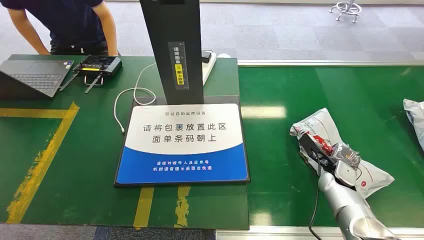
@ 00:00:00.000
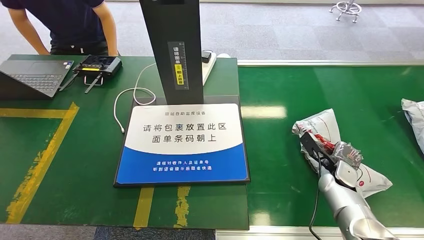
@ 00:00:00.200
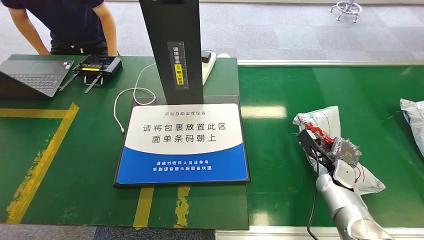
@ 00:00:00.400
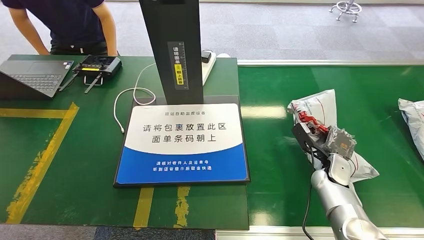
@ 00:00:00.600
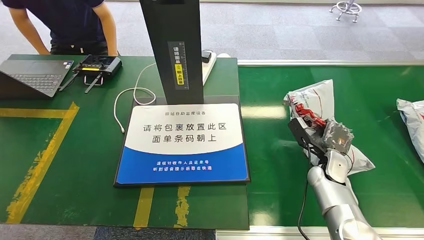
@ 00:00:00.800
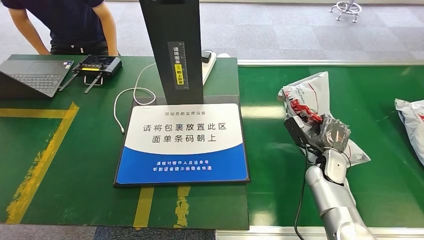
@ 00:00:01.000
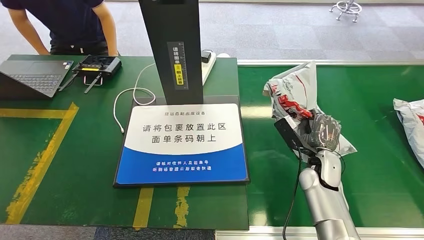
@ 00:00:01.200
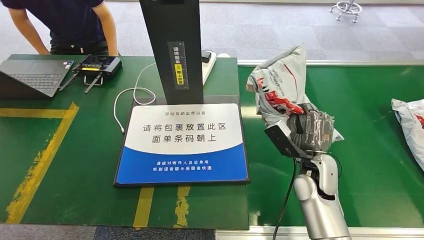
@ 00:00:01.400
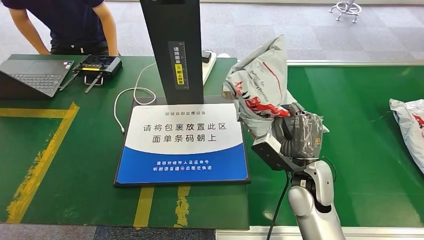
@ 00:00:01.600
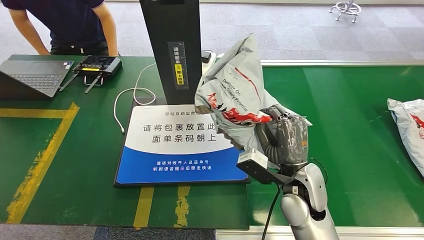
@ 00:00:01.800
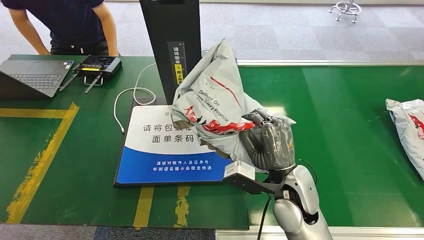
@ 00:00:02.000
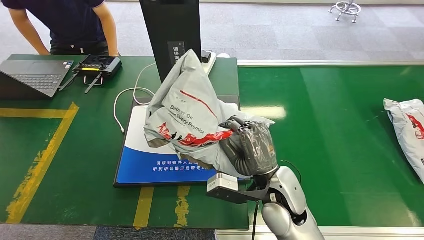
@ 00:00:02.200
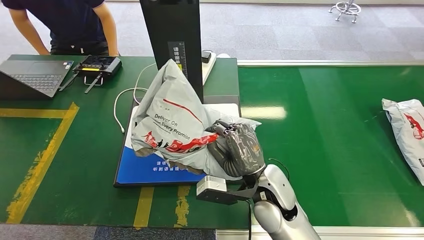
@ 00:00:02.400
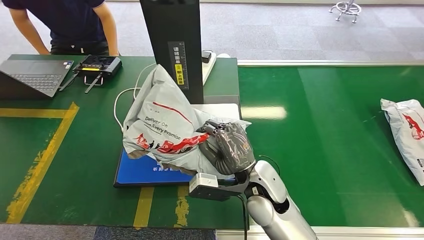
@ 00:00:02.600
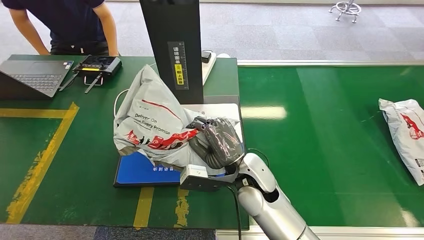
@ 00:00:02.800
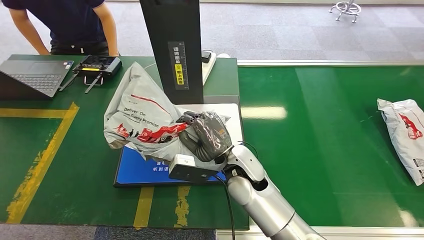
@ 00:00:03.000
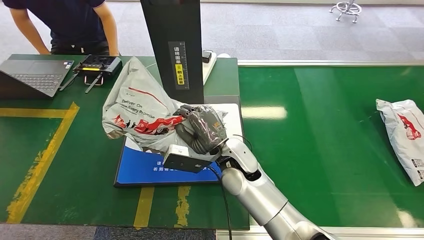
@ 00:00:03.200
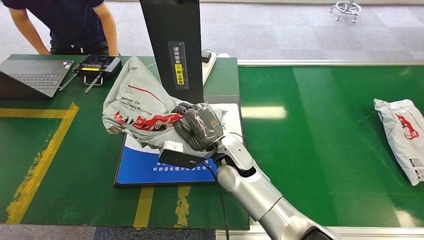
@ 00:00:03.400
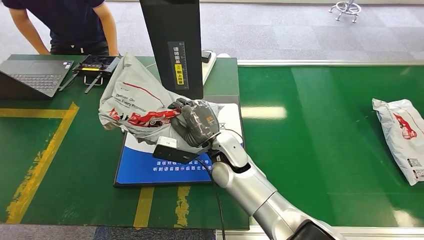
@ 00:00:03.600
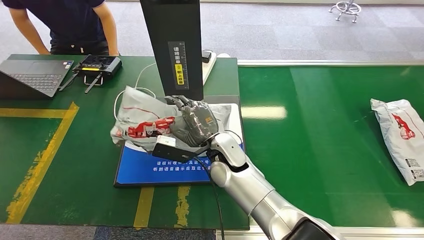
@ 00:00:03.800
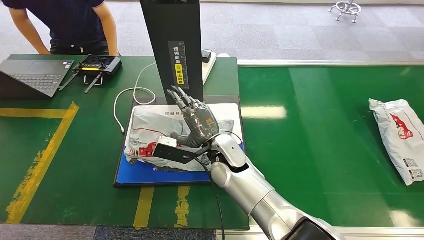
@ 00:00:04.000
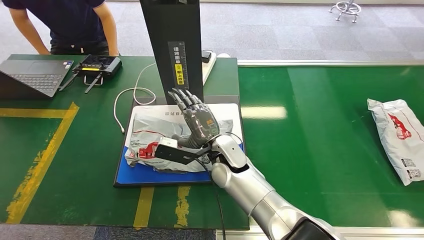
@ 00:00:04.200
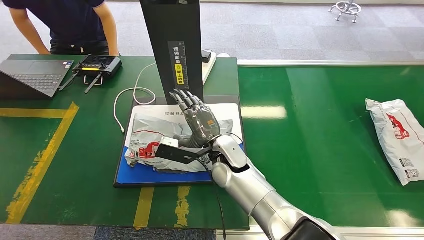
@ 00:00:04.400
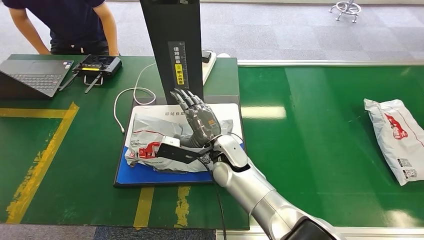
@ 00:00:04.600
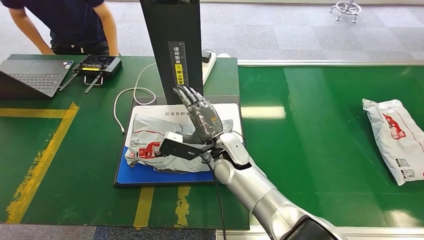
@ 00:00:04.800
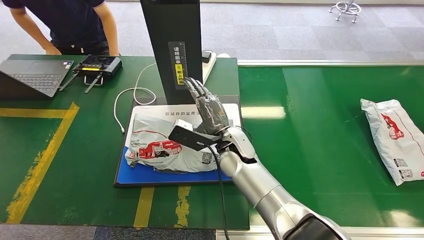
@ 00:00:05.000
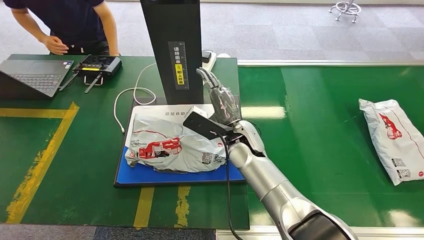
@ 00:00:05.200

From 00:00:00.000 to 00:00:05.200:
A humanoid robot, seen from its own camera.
Step, from 00:00:00.000 to 00:00:01.800: Pick up the package from the conveyor belt.
Step, from 00:00:02.000 to 00:00:05.200: Place the package onto the inbound machine.

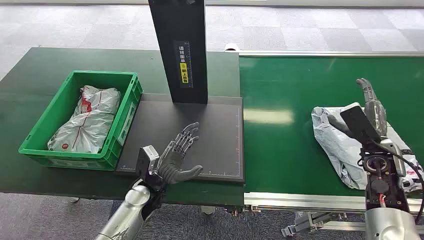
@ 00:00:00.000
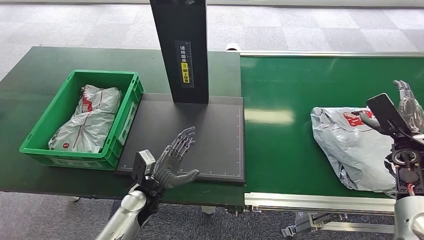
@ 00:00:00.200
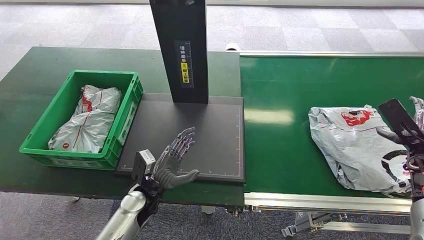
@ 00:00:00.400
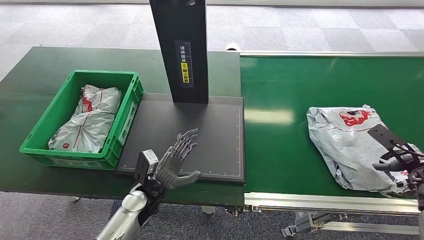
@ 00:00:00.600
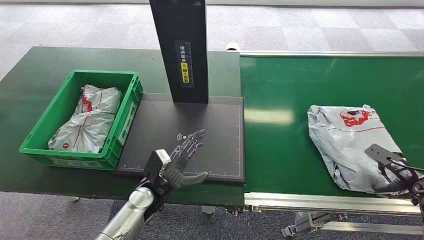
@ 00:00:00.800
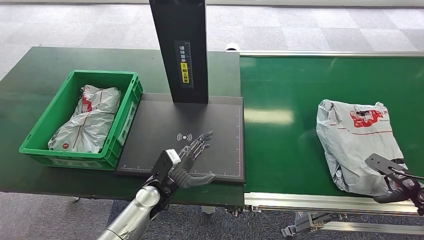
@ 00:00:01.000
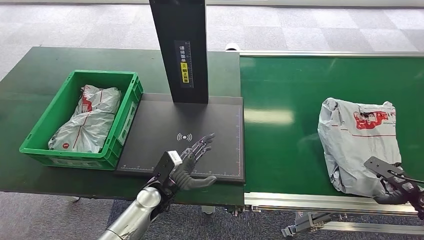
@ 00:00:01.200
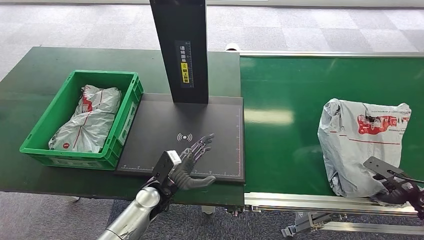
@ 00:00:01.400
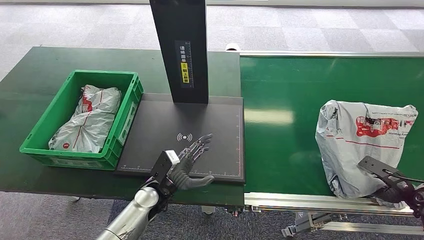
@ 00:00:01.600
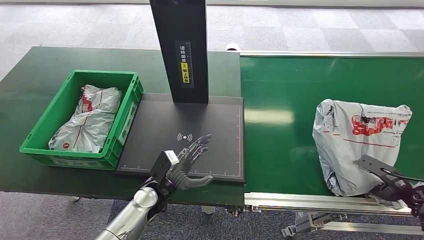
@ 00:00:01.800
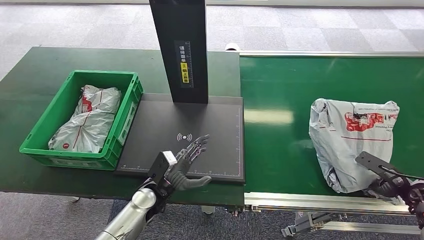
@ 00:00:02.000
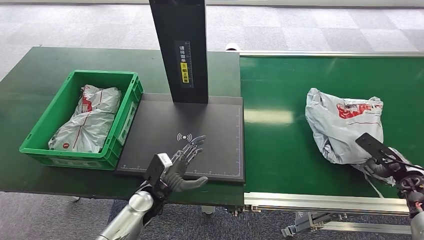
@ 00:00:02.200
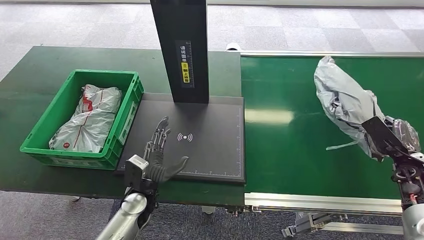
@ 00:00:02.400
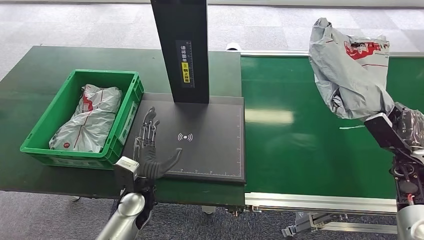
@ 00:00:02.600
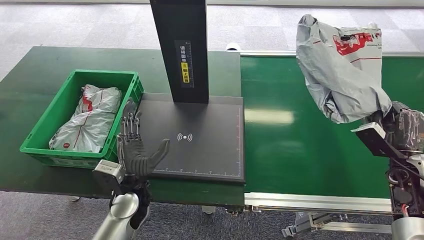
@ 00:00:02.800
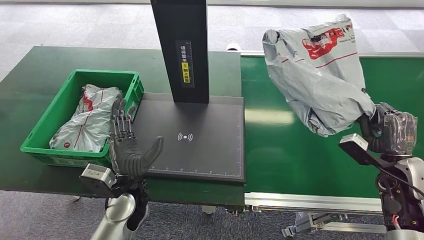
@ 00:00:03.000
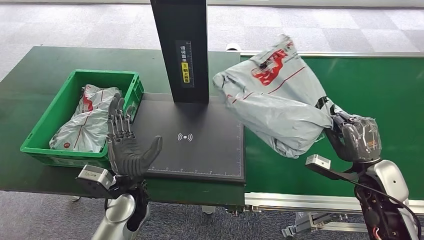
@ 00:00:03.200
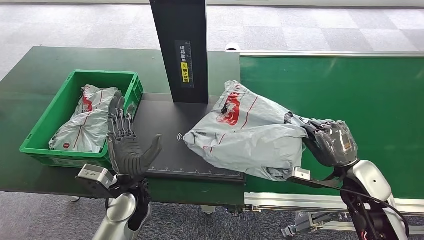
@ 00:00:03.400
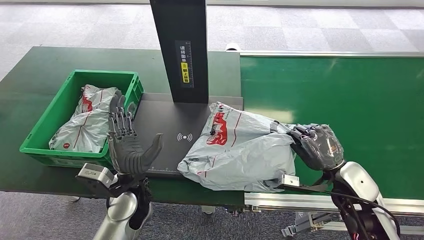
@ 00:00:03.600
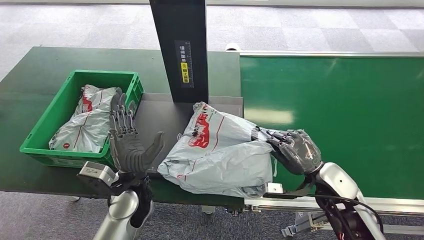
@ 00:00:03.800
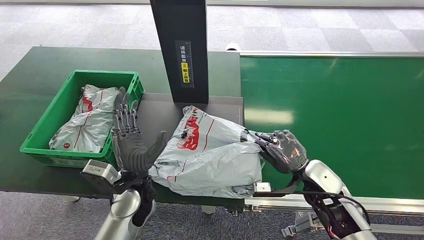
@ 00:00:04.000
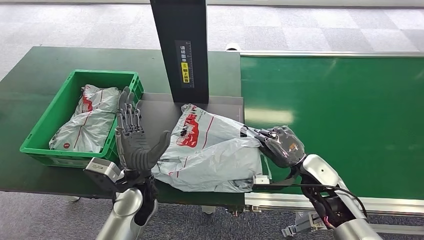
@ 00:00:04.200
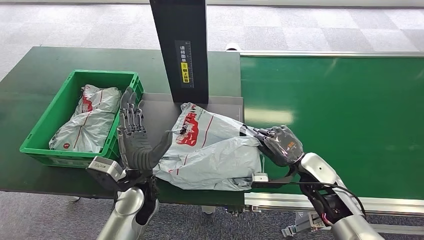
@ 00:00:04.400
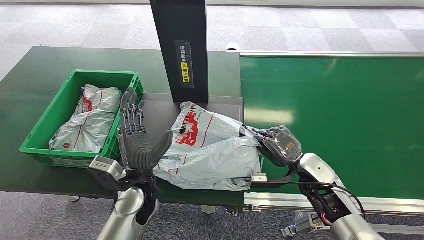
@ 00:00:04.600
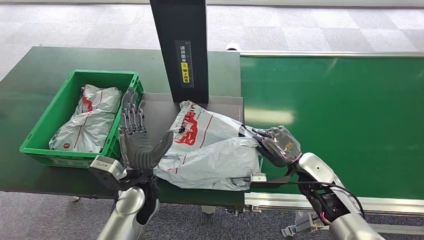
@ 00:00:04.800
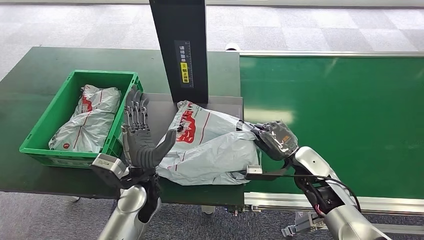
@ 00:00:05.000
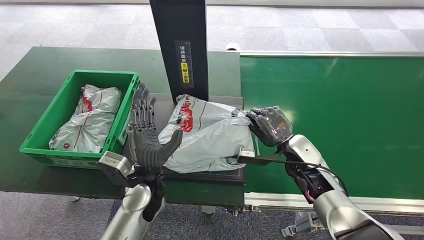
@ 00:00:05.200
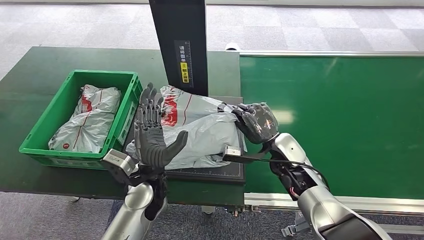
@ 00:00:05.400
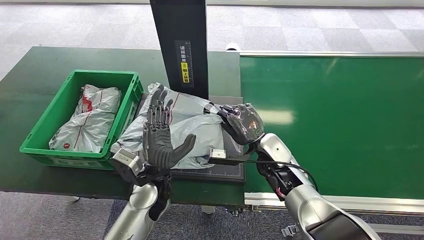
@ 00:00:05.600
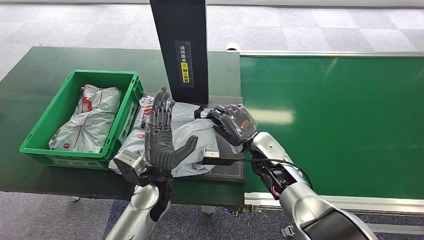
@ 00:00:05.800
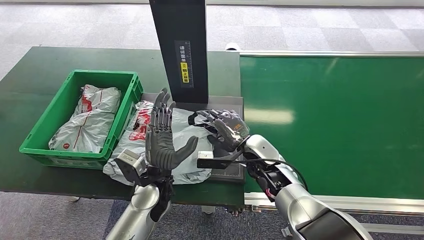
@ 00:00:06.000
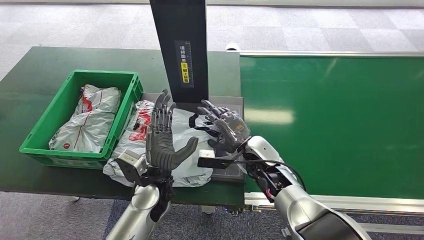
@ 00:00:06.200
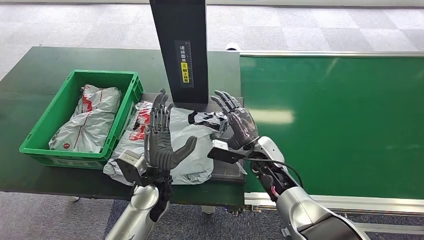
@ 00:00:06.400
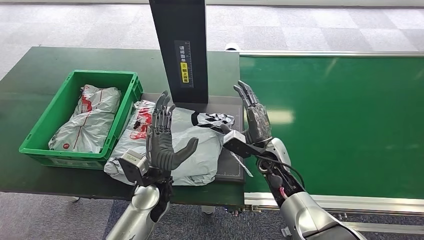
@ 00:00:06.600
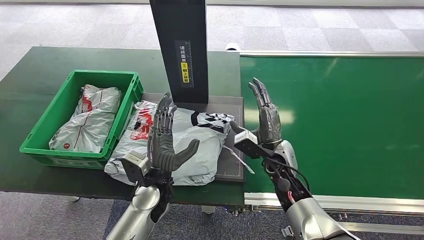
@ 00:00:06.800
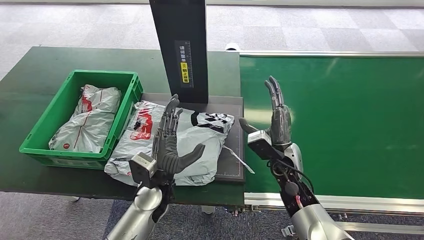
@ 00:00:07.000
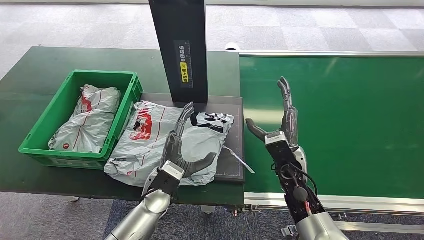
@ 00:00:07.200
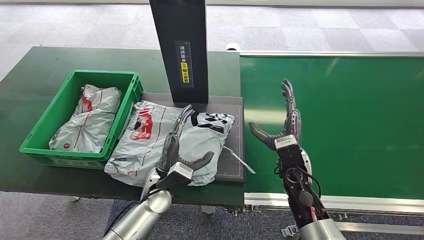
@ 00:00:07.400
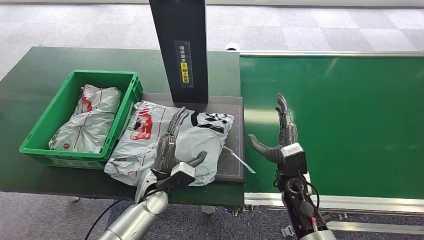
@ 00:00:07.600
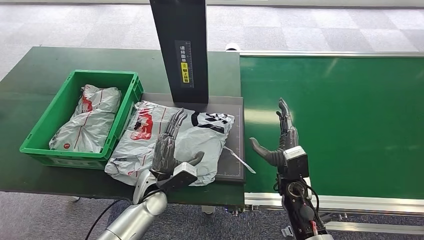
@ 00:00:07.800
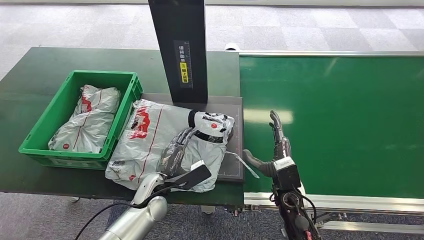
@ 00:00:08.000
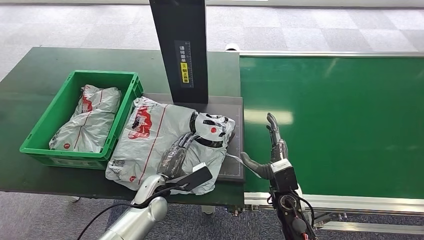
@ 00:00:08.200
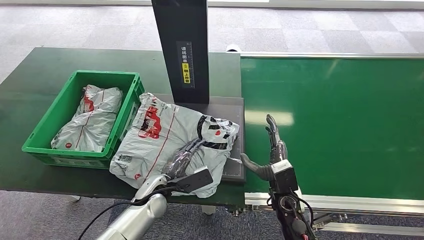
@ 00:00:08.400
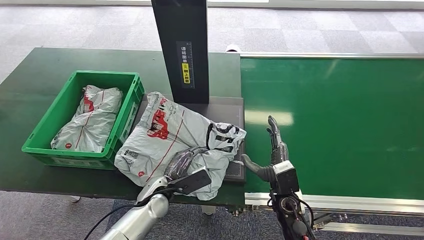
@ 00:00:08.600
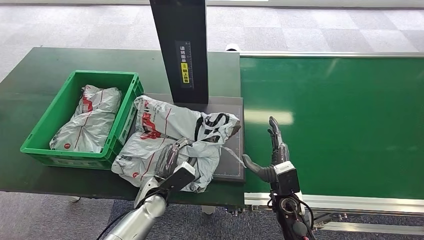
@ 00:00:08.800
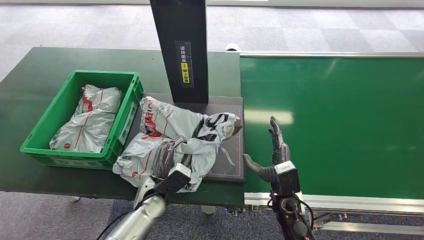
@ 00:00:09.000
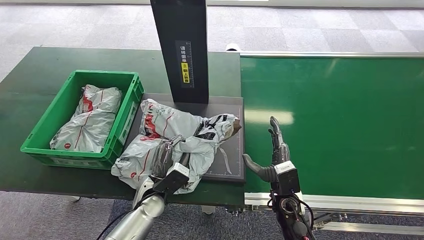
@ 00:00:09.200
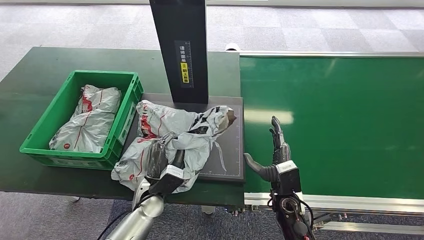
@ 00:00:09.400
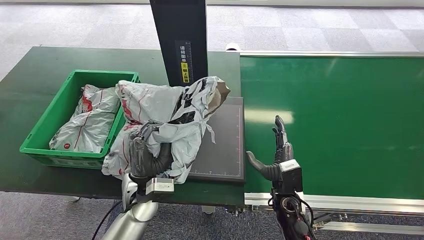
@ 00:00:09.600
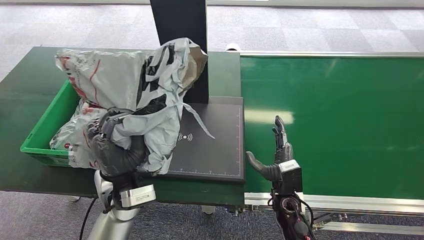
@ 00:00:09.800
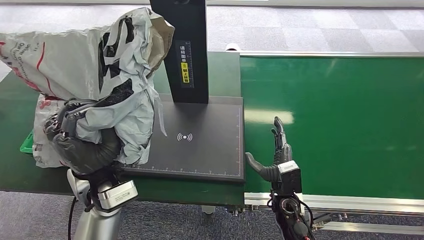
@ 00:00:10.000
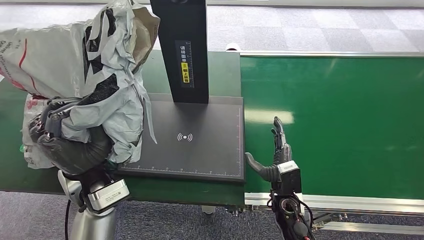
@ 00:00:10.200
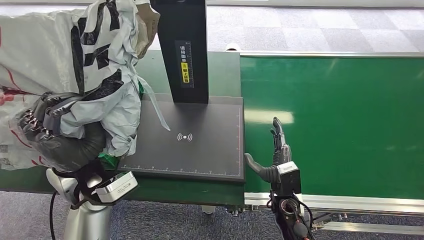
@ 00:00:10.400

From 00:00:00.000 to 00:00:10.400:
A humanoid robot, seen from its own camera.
Step, from 00:00:00.000 to 00:00:02.400: Pick up the package from the conveyor belt.
Step, from 00:00:02.800 to 00:00:06.600: Place the package onto the inbound machine.
Step, from 00:00:06.800 to 00:00:09.600: Pick up the package from the inbound machine.
From 00:00:04.400 to 00:00:06.000: The right hand heads to the left, covering about 15 cm.
From 00:00:06.000 to 00:00:07.400: The right hand shifts about 5 cm to the right, while the left hand changes place by about 5 cm.
From 00:00:07.400 to 00:00:09.000: The right hand moves downward and backward, roughly 10 cm.

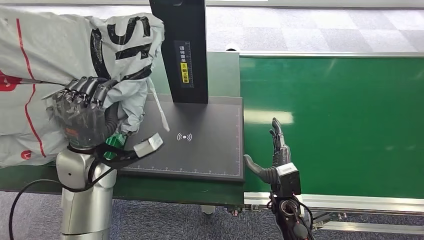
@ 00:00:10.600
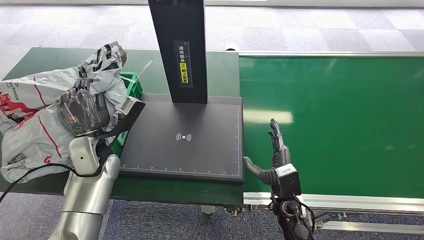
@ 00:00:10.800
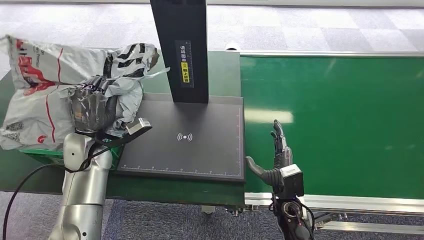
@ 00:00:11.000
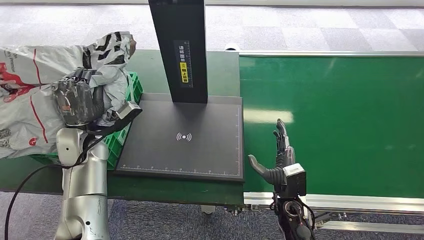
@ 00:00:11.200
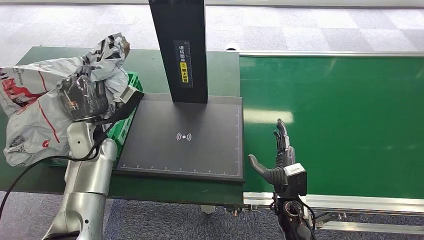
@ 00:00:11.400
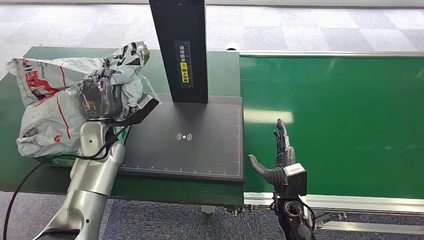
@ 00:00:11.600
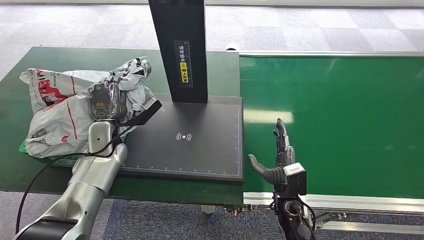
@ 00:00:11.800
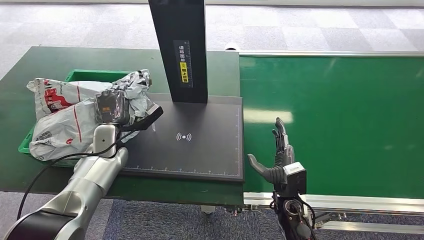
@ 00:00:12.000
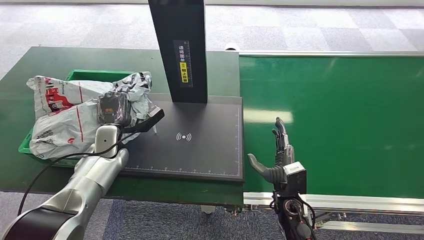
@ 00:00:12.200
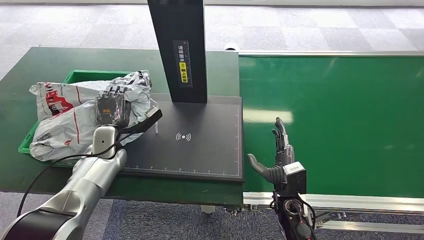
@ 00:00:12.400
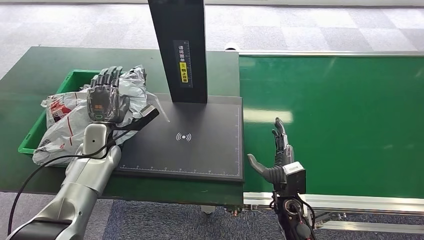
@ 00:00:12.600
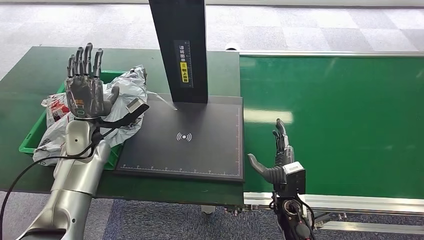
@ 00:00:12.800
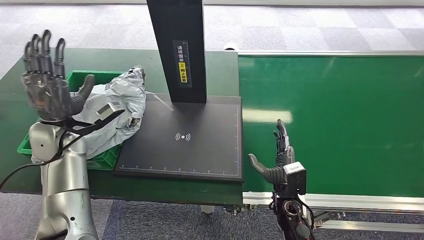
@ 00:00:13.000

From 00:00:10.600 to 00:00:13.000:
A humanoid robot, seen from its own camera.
Step, from 00:00:10.600 to 00:00:13.000: Place the package into the parcel locker.
From 00:00:11.800 to 00:00:13.000: The left hand travels to the left and upward by approximately 10 cm.
